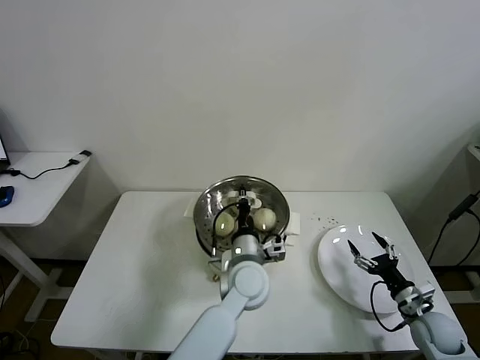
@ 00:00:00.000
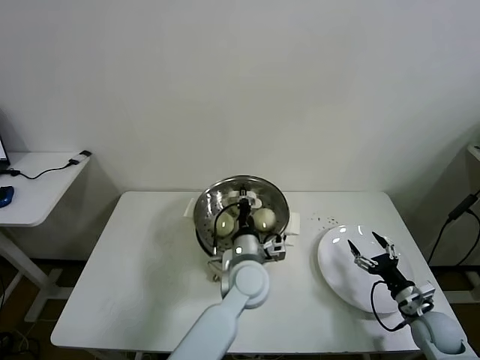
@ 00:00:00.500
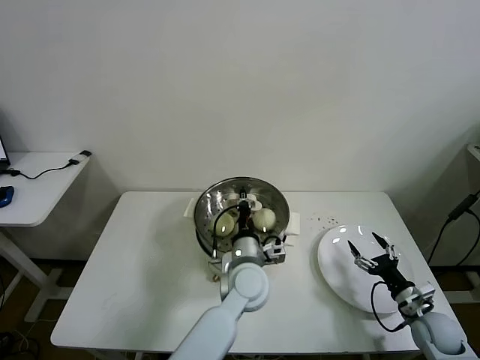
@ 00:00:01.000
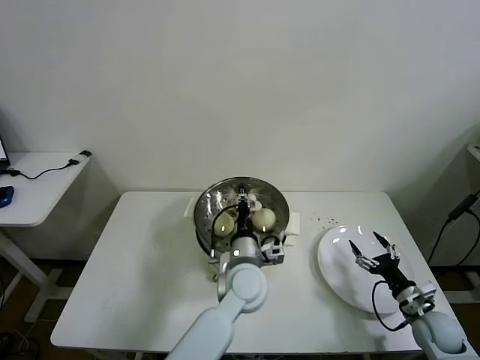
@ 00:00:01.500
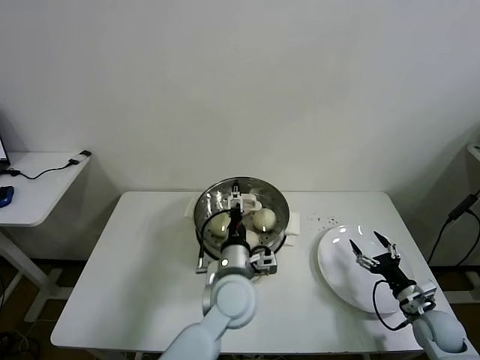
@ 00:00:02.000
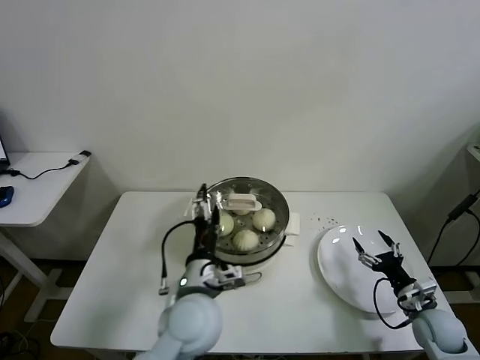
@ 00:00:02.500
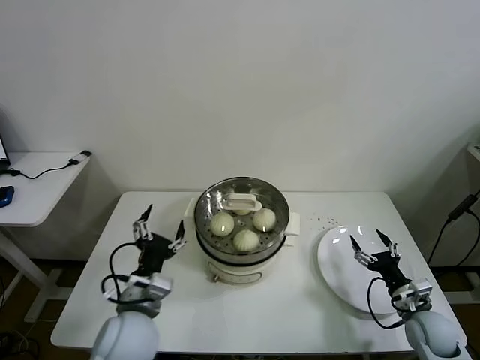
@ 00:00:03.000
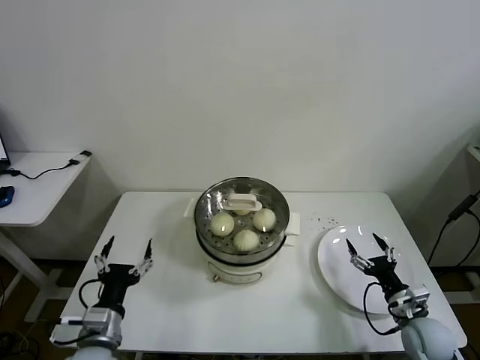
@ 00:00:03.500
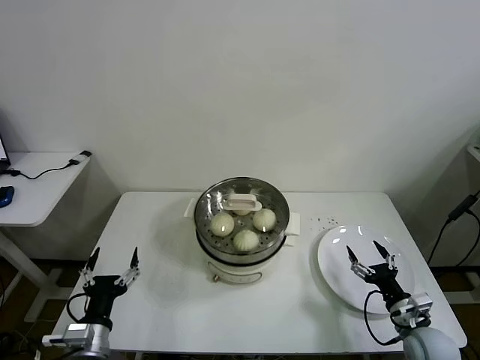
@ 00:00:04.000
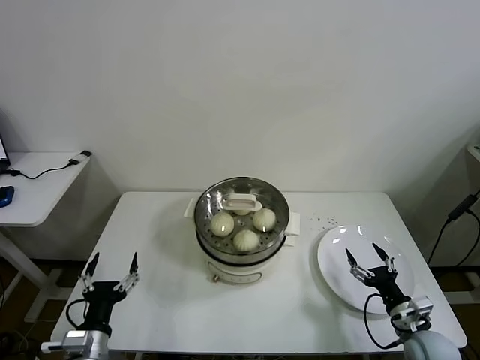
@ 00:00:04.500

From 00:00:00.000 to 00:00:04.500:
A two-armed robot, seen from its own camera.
Task of the whole recording: take steamed baozi put them in steamer then cover it.
Step, from 00:00:00.000 to 00:00:02.000: Place the pot lid on the steamer with left gripper.
From 00:00:00.000 to 00:00:02.000: The left gripper opens.
From 00:00:02.000 to 00:00:04.500: The right gripper travels to the left by roughly 5 cm. Meanwhile the left gripper shifts roughly 30 cm to the left and backward.
